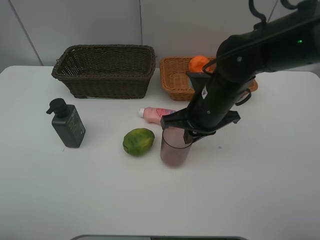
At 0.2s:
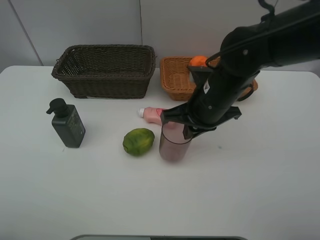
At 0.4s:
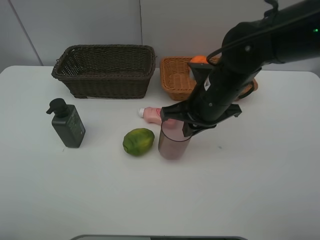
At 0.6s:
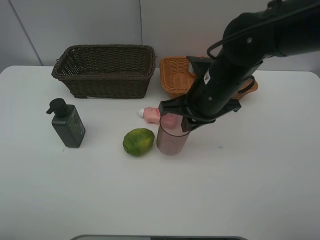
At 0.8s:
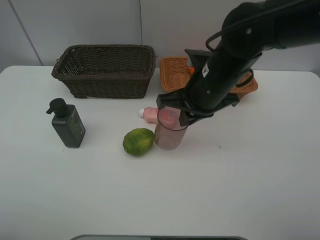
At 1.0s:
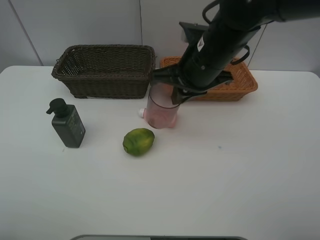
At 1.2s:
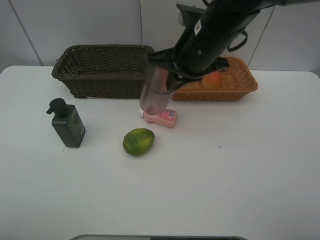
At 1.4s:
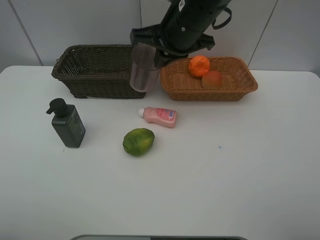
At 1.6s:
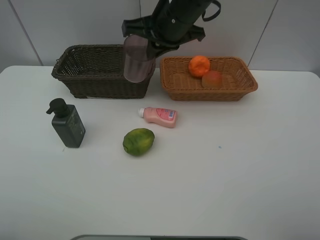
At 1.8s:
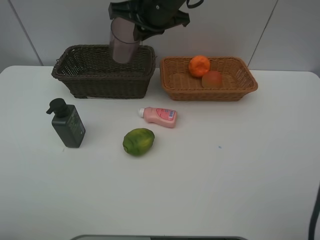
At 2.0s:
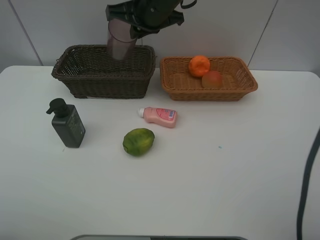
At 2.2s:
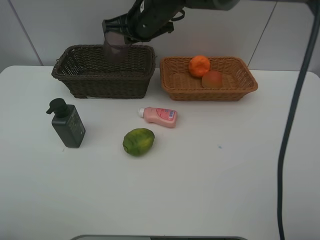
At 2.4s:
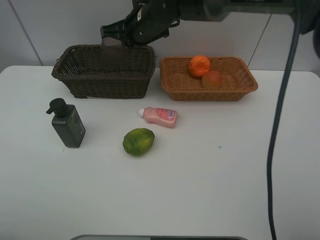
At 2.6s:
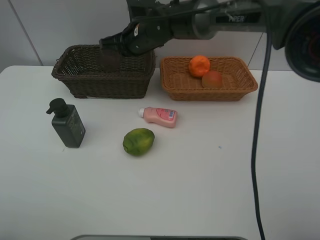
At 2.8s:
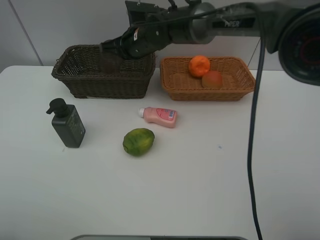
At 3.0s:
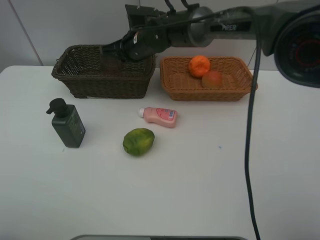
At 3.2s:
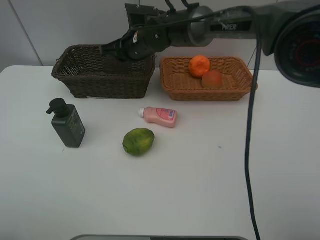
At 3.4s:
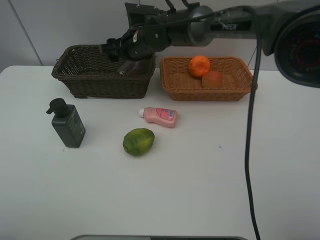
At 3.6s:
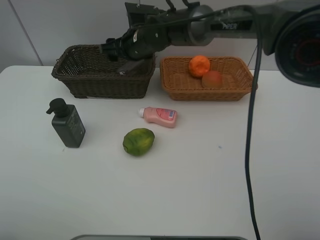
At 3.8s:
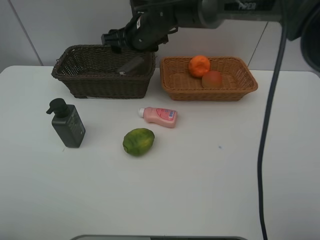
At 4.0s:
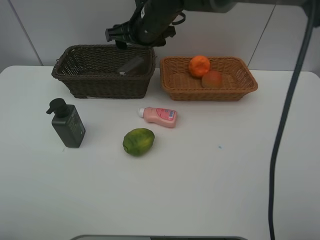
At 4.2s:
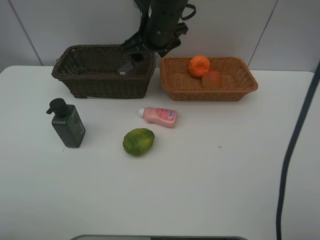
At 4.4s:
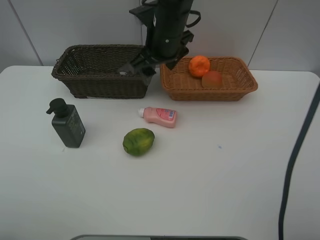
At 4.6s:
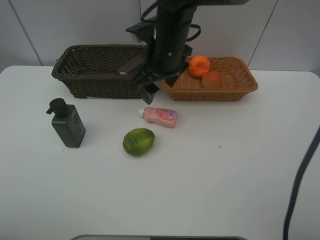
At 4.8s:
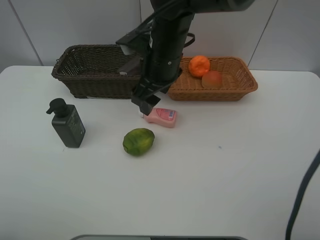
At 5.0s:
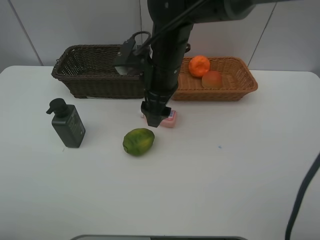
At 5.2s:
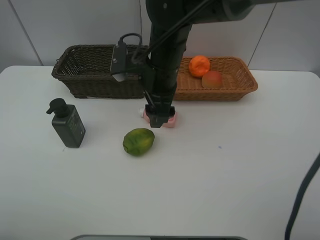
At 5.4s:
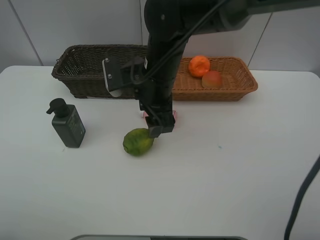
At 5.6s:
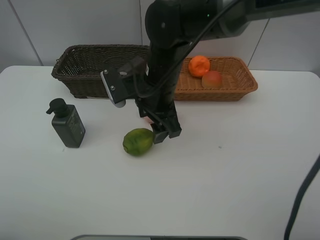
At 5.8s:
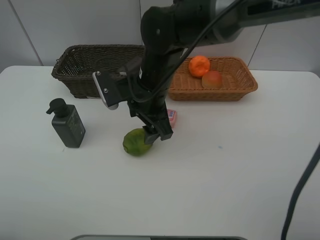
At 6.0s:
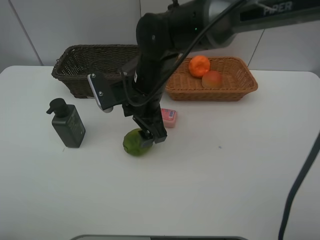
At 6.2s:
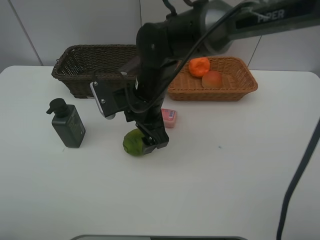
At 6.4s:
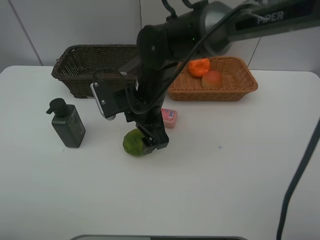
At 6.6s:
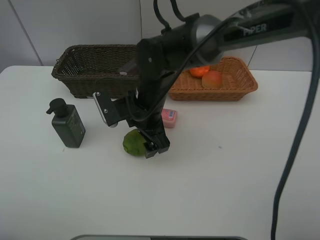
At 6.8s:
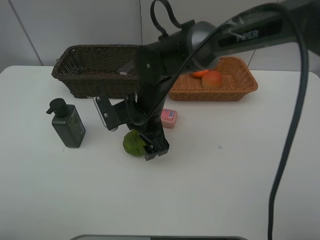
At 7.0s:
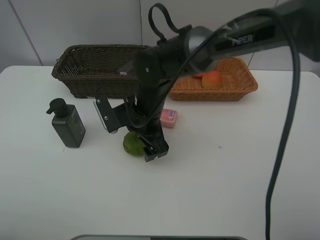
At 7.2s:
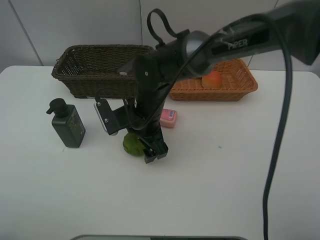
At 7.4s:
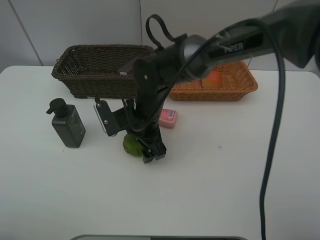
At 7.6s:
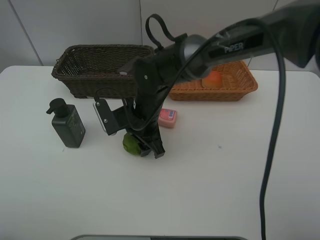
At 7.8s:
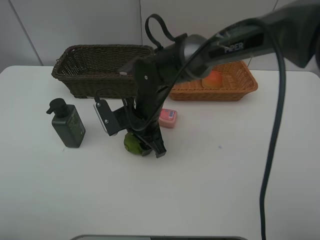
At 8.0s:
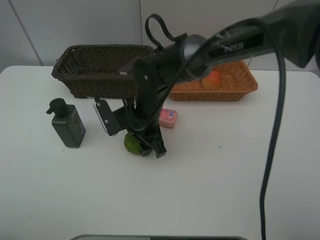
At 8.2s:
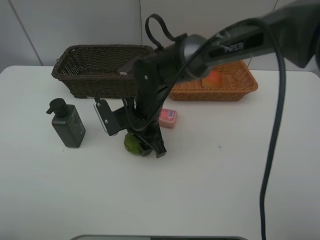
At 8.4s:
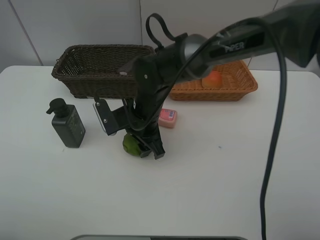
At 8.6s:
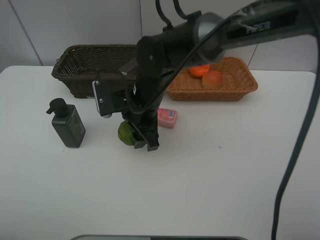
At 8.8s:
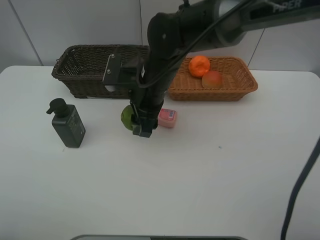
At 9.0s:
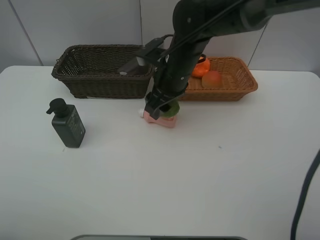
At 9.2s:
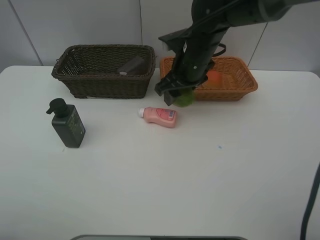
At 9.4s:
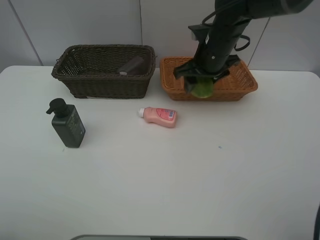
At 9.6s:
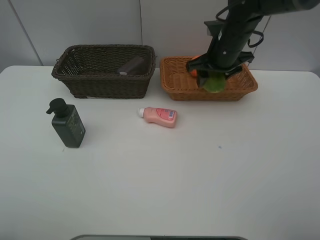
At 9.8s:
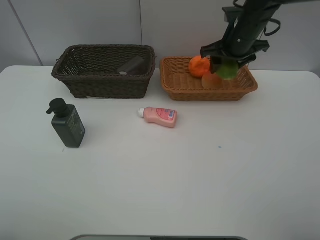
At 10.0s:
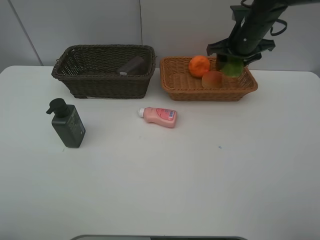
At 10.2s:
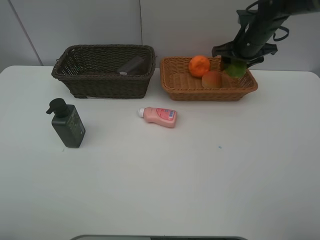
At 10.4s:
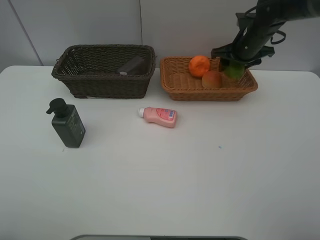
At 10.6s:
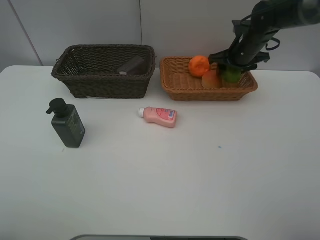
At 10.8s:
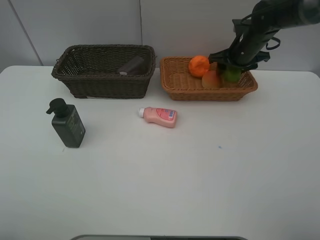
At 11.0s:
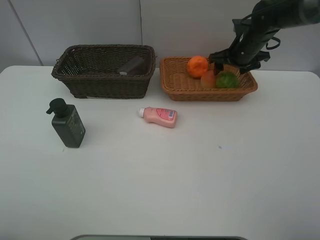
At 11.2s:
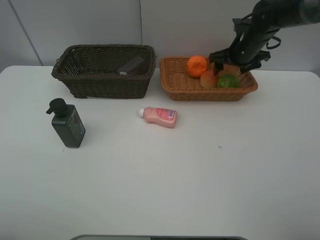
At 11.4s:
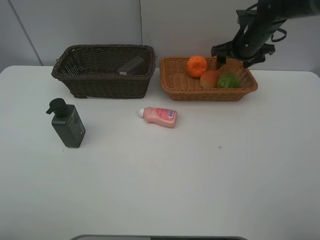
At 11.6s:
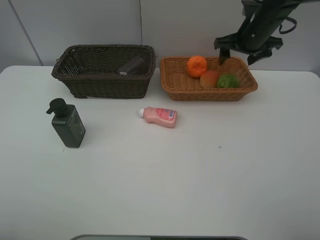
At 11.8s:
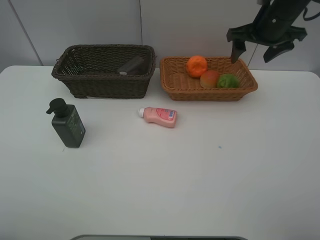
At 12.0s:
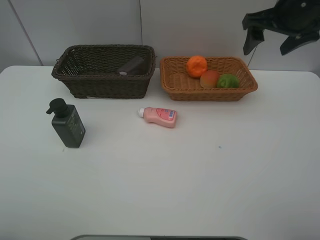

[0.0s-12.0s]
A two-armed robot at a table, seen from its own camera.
Task of the whole recording: place multiple objects separately in different baskets.
0.0s to 1.6s: The right gripper heads upward, forward and to the left, covering roughly 15 cm.
1.6s to 3.0s: The right gripper is displaced downward, forward and to the left by approximately 15 cm.
3.0s to 4.4s: The right gripper goes approximately 10 cm backward, upward and to the right, and opens its fingers.
4.4s to 6.0s: The right gripper heads backward and downward, covering approximately 10 cm.
6.0s to 7.6s: The right gripper is displaced downward by about 5 cm.
7.6s to 9.0s: The right gripper moves upward and to the right, some 10 cm.
9.0s to 10.4s: The right gripper goes roughly 20 cm to the right and forward.
10.4s to 12.0s: The right gripper shifts some 15 cm upward and backward.

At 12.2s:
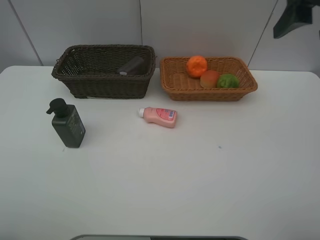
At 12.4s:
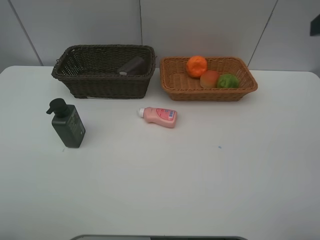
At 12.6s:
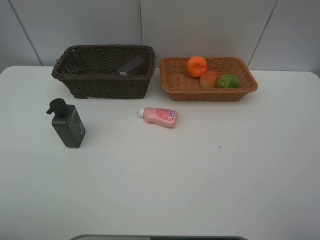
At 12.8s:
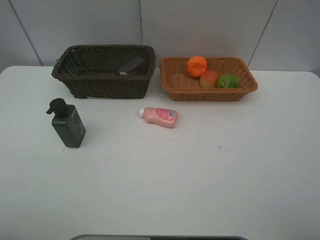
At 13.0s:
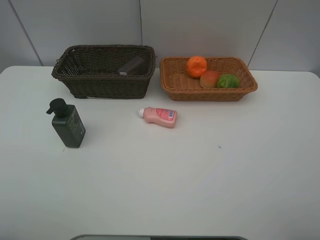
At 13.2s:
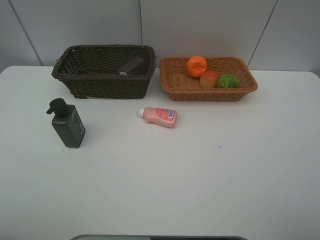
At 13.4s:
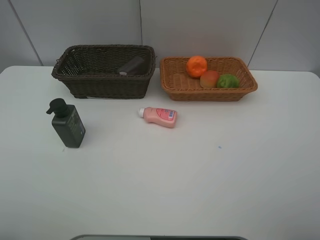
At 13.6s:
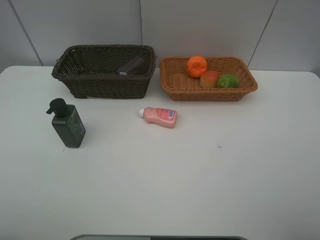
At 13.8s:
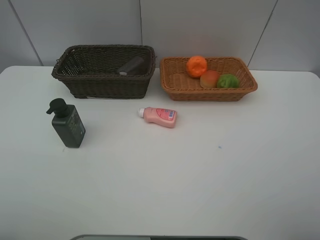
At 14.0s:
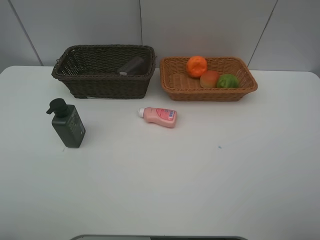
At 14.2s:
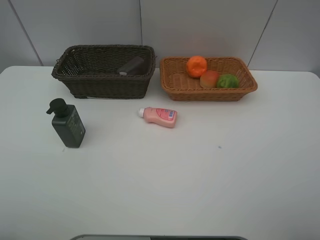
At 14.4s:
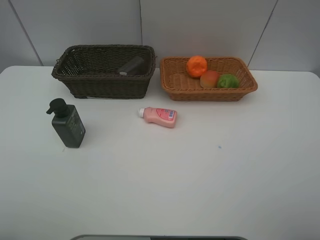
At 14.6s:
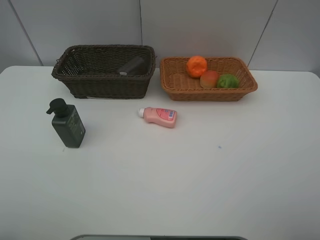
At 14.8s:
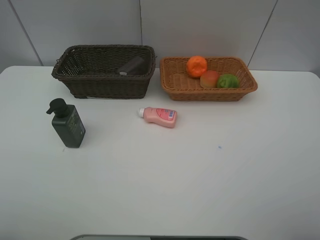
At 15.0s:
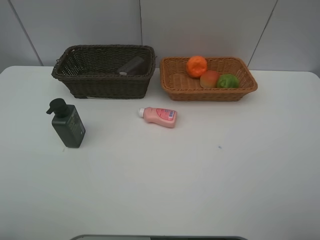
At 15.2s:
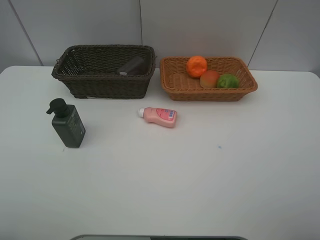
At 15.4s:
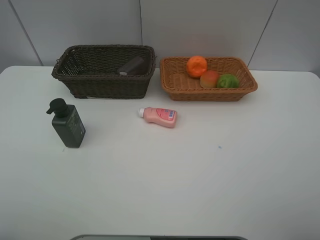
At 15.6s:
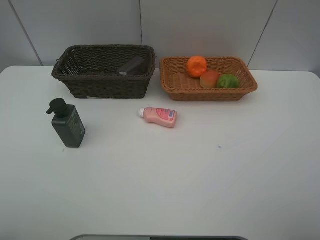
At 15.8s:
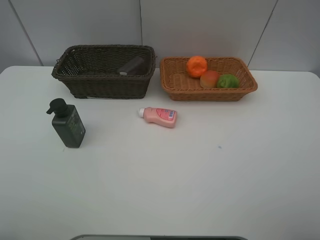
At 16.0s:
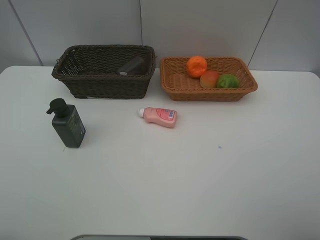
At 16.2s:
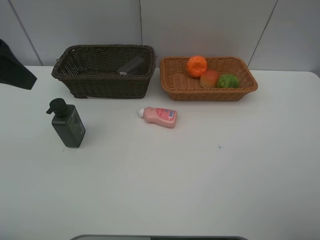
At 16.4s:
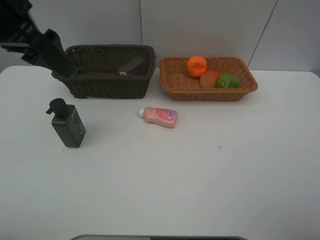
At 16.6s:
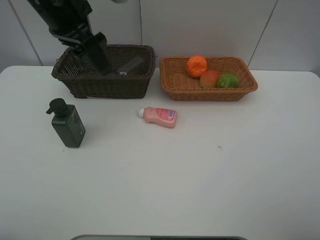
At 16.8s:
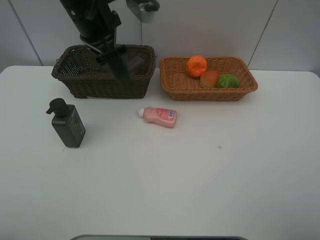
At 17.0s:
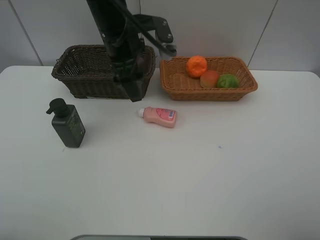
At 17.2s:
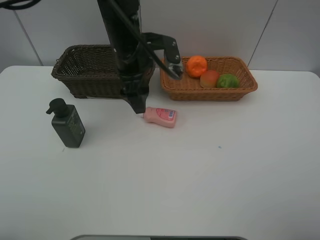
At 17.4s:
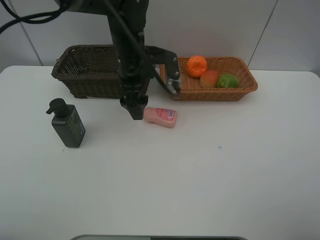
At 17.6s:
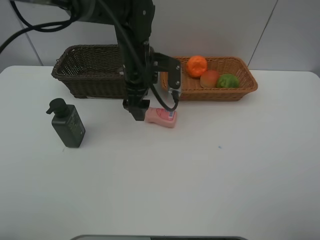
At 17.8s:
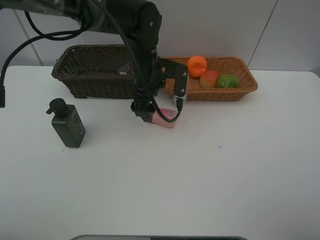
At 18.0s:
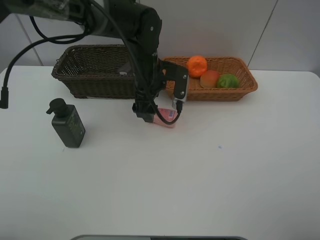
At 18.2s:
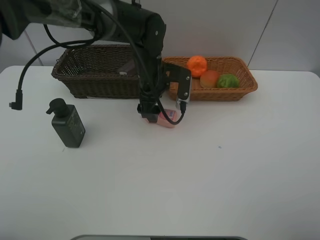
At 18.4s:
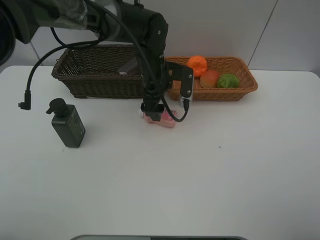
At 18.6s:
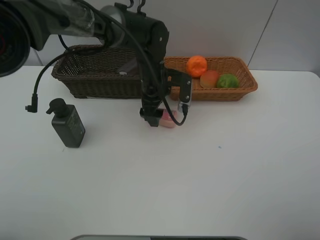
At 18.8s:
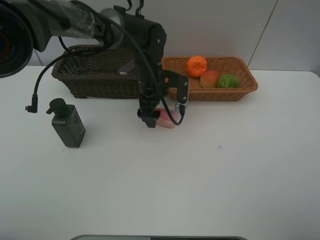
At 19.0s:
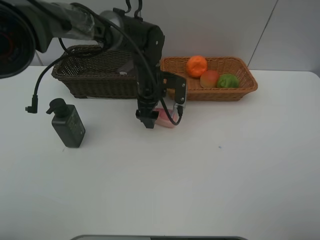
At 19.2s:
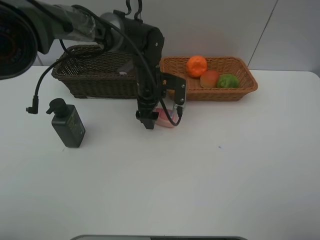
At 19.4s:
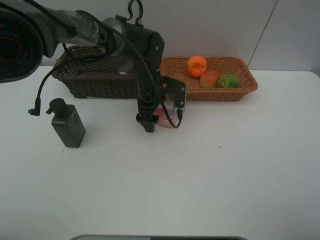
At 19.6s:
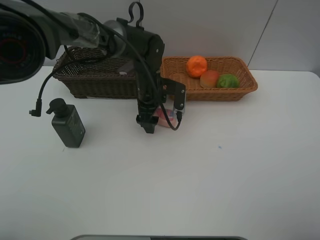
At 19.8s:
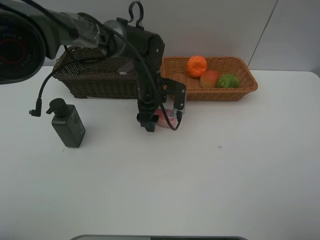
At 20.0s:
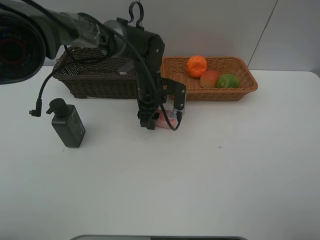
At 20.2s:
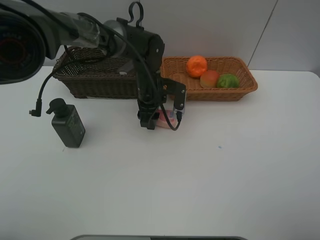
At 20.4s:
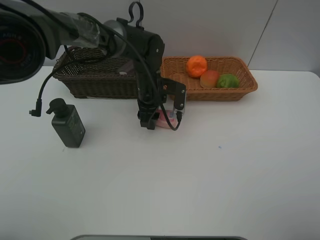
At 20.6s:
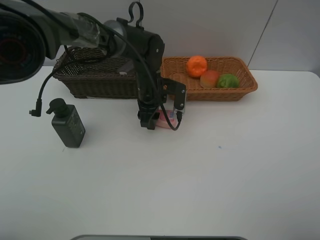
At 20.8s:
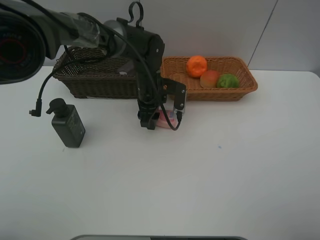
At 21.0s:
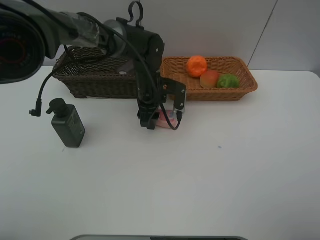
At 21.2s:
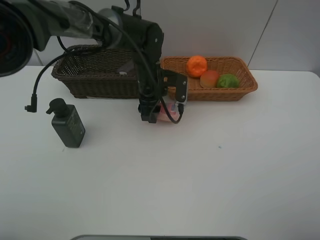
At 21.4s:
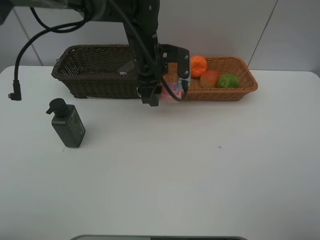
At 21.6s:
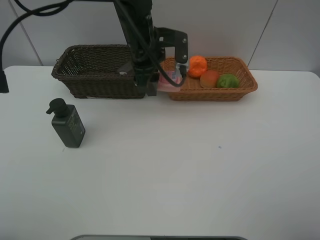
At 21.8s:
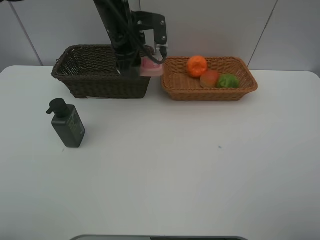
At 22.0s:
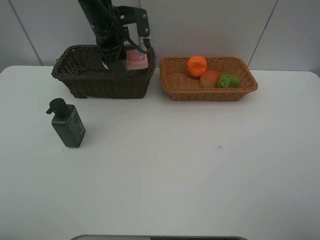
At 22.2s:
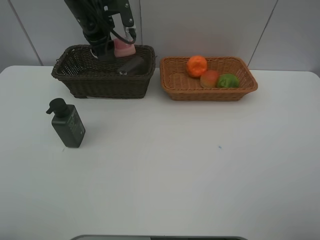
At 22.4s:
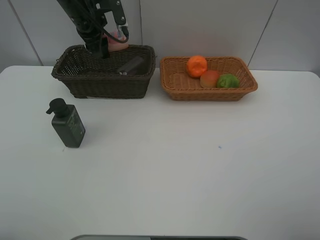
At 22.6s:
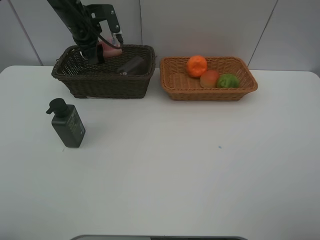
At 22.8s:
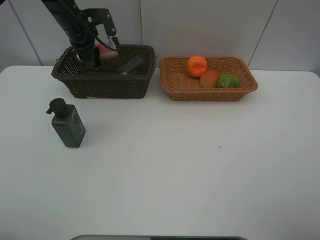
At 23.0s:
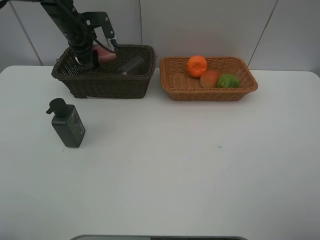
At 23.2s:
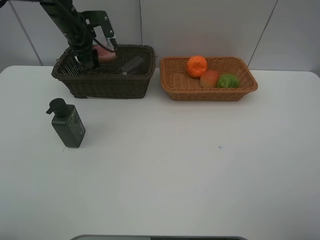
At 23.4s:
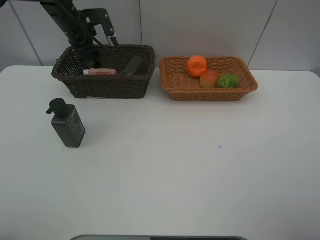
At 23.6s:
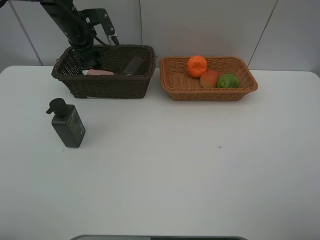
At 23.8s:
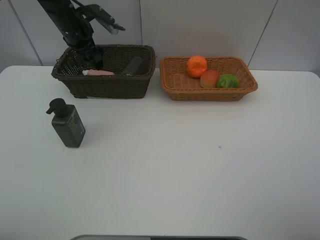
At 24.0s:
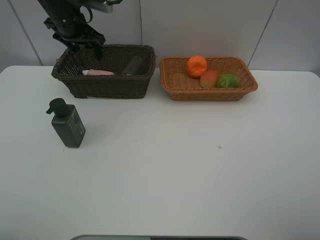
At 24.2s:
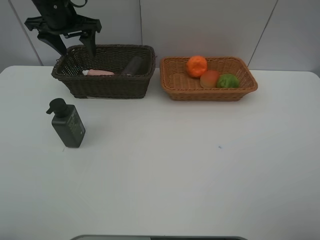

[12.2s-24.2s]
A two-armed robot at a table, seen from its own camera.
Task of the whole recording: place multiple objects separately in different baskets.
12.2s to 13.8s: The right gripper goes roughly 25 cm backward.
15.2s to 16.6s: The left gripper moves forward and to the right, approximately 40 cm.
16.6s to 18.2s: The left gripper goes about 20 cm downward and to the right.
18.2s to 19.8s: The left gripper ends up roughly 5 cm from where it was, and closes up.
19.8s to 21.2s: The grippers make only small movements.
21.2s to 22.6s: The left gripper moves to the left, forward and upward, about 20 cm.
22.6s to 24.2s: The left gripper shifts roughly 5 cm backward and upward, and opens up.
